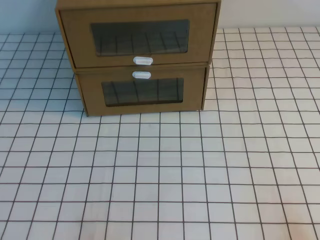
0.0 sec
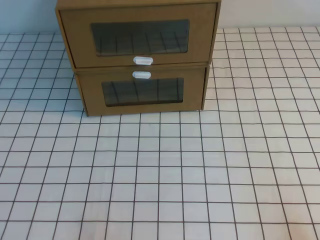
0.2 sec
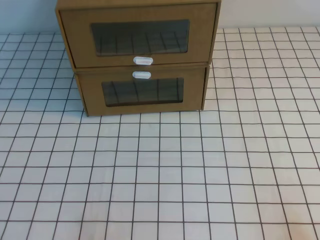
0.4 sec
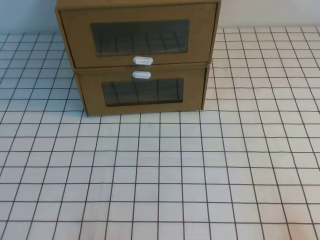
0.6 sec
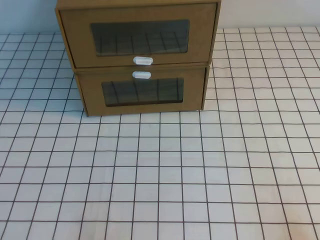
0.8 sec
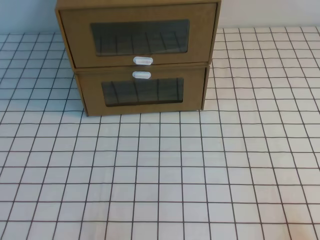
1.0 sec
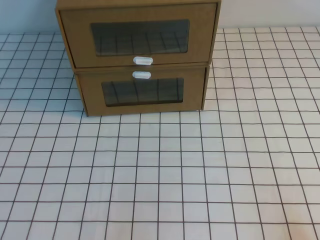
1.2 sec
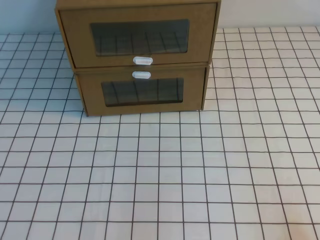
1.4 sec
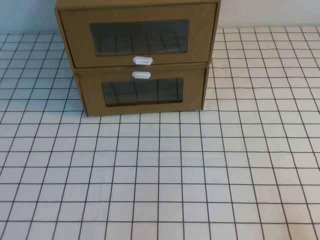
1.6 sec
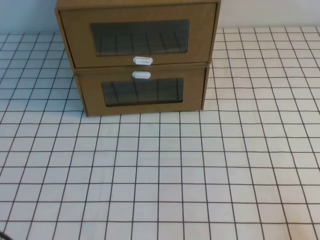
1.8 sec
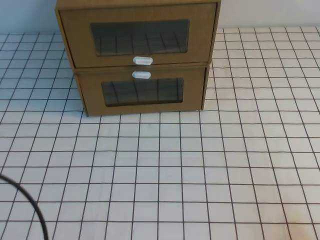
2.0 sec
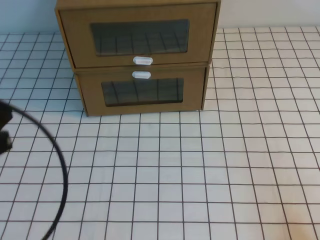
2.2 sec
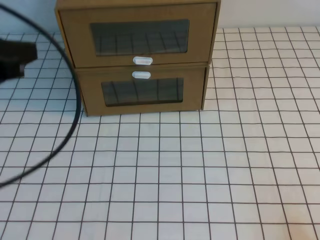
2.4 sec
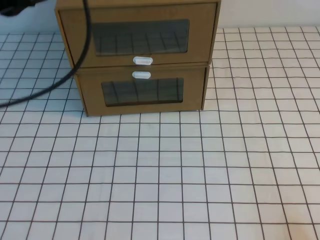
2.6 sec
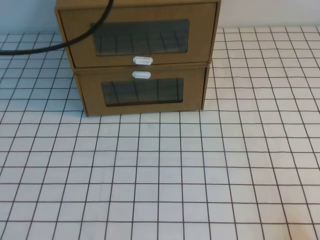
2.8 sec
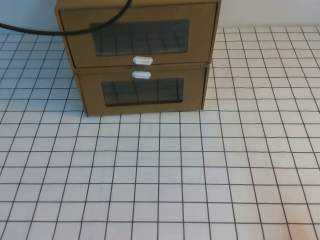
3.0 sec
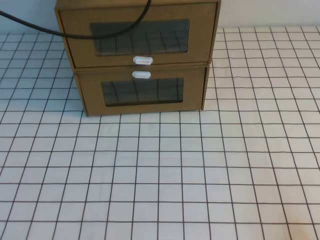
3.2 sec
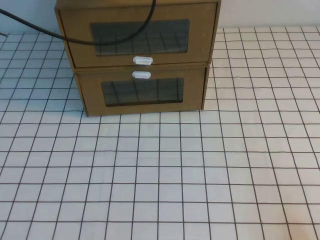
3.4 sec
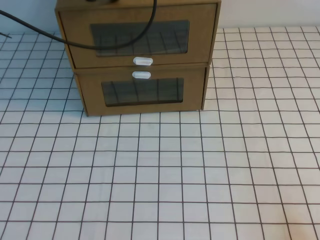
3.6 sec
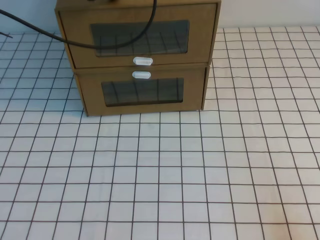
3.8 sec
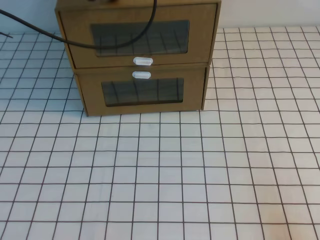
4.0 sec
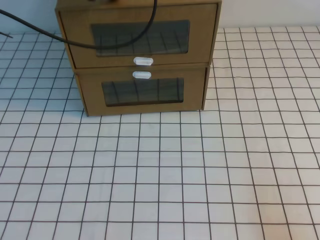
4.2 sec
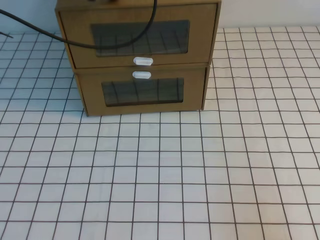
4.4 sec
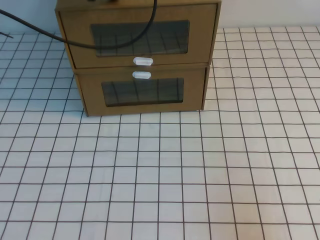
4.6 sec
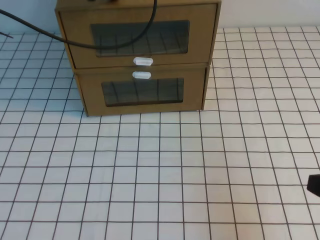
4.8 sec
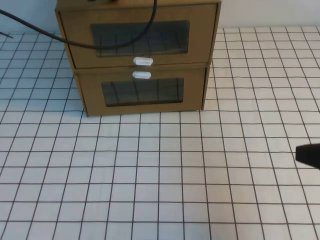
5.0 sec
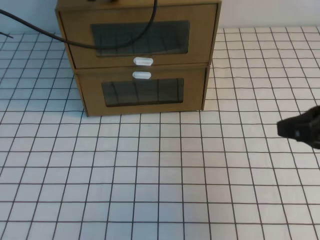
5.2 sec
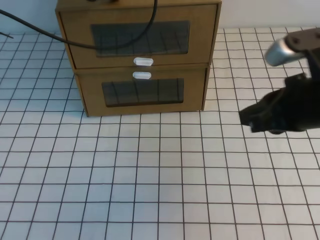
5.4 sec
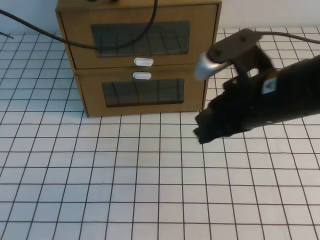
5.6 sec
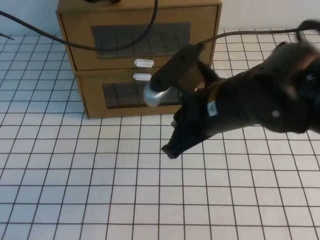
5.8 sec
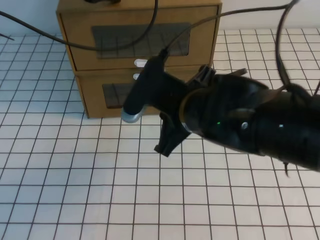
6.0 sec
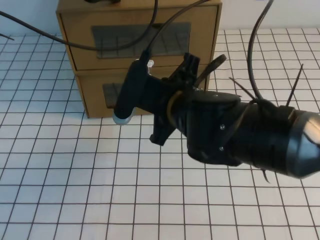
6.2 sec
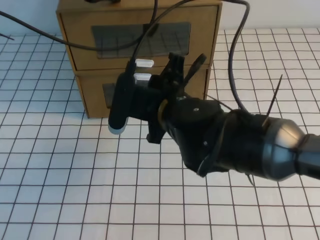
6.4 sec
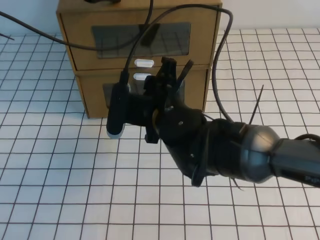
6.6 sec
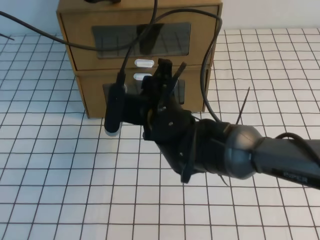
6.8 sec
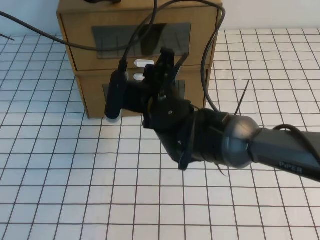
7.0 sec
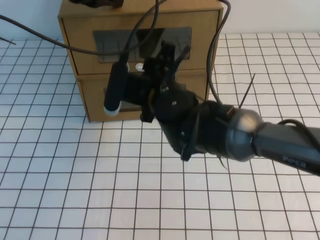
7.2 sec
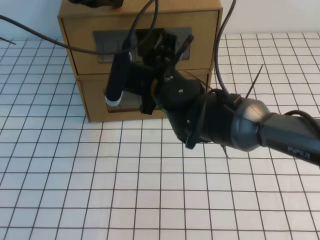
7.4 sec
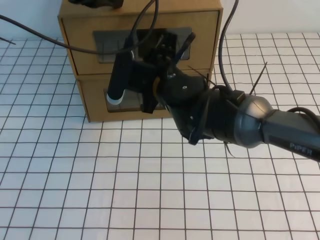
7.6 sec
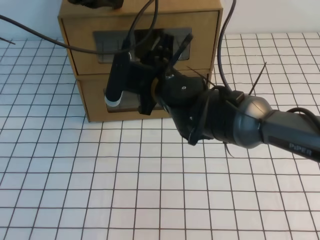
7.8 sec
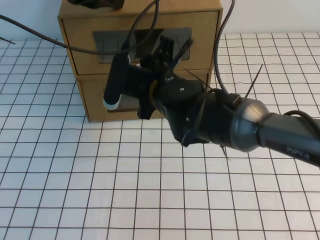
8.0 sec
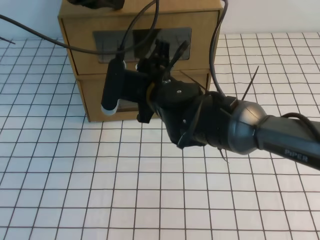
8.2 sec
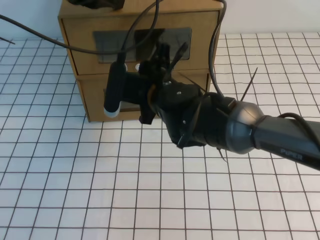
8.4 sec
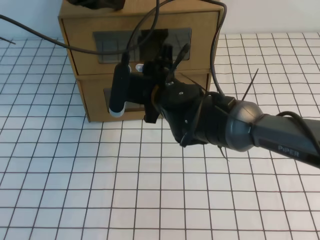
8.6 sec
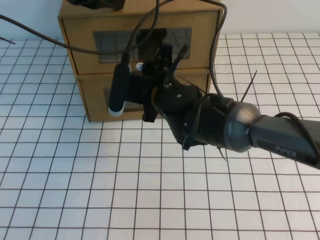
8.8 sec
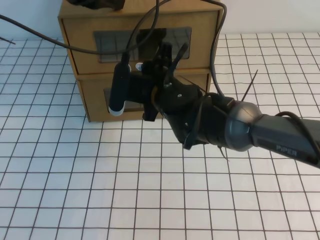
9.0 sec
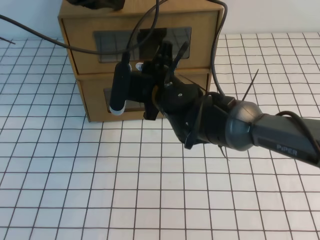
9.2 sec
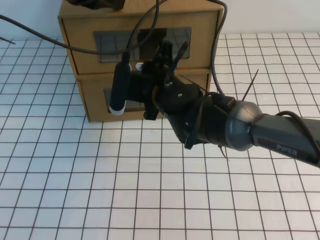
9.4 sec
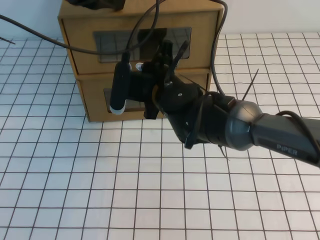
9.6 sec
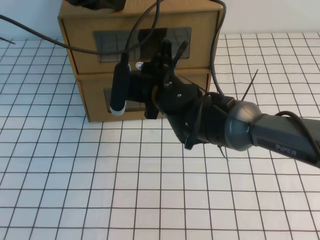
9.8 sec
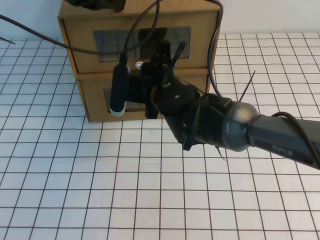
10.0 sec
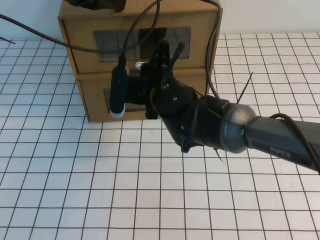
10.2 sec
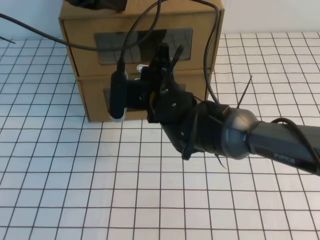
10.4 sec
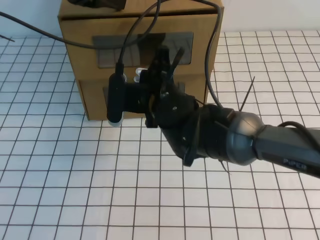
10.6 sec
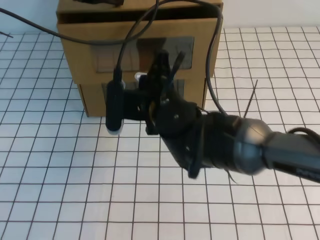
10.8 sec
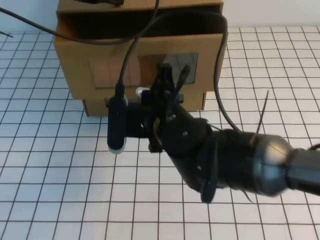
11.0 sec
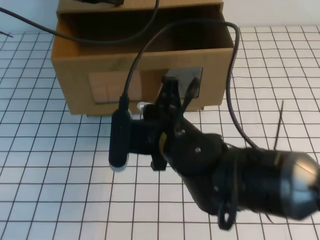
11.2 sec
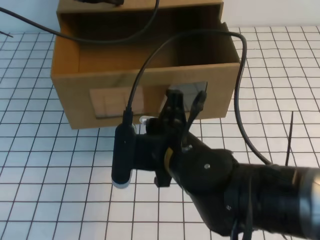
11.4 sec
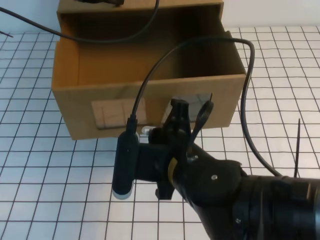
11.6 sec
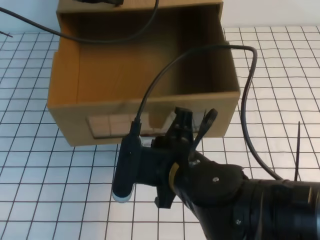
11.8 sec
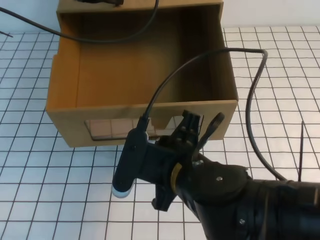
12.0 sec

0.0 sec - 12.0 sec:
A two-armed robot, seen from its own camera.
Task of the whole recording: open the shoebox on the white tablecloth.
1.6 sec - 3.0 sec: The left gripper heads forward and upward, covering some 40 cm.
3.0 sec - 4.4 sec: The left gripper is displaced forward and downward by some 10 cm. Meanwhile the right gripper moves upward, roughly 5 cm.
4.4 sec - 6.0 sec: The right gripper shifts roughly 30 cm to the left and forward.
6.0 sec - 7.6 sec: The right gripper travels forward and to the left by approximately 10 cm, and opens up.
7.6 sec - 9.0 sec: There are only small adjustments of the grippers.
9.0 sec - 10.4 sec: The right gripper closes.
10.4 sec - 12.0 sec: The right gripper travels backward by approximately 15 cm.

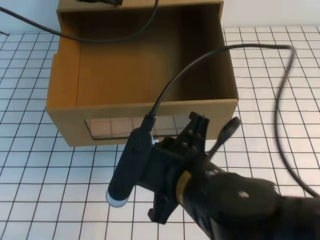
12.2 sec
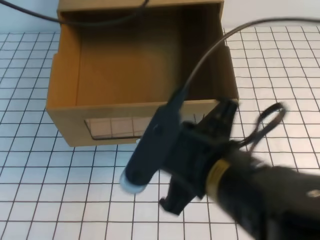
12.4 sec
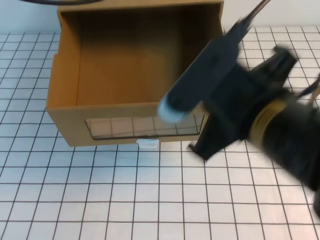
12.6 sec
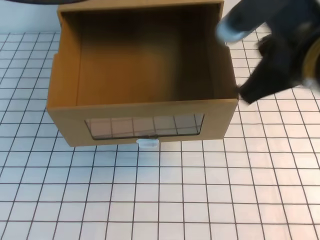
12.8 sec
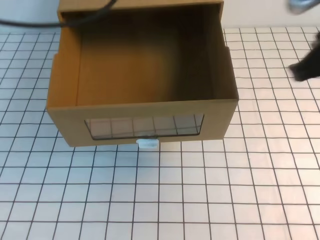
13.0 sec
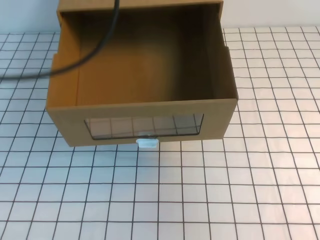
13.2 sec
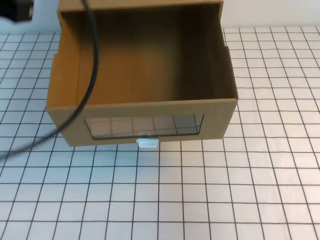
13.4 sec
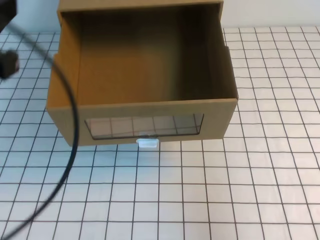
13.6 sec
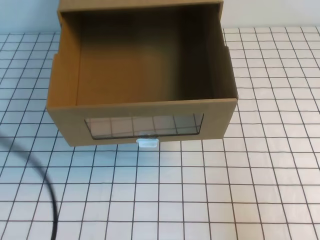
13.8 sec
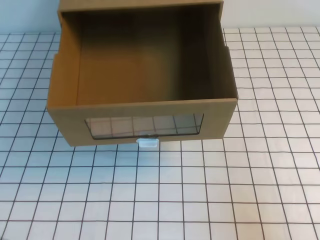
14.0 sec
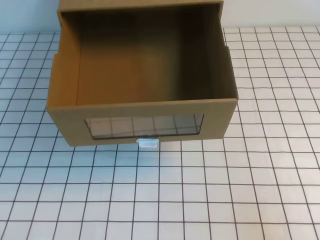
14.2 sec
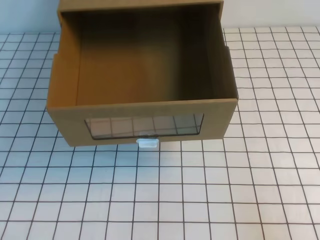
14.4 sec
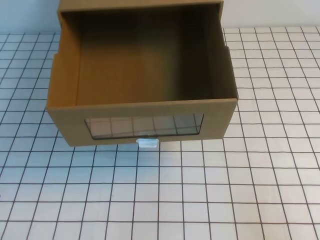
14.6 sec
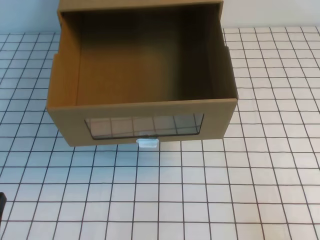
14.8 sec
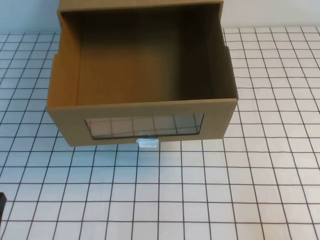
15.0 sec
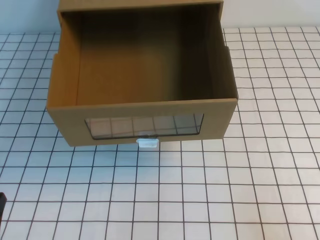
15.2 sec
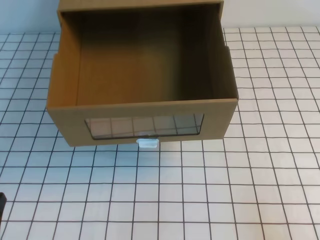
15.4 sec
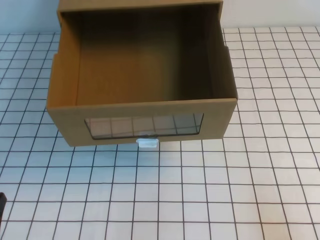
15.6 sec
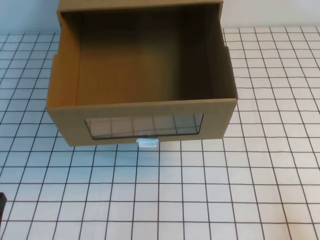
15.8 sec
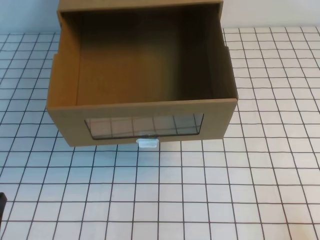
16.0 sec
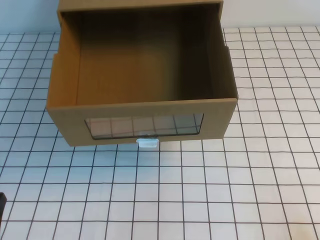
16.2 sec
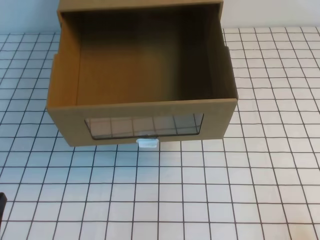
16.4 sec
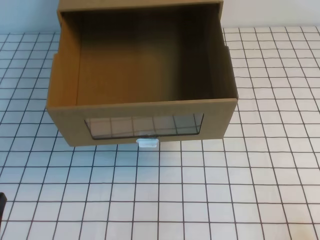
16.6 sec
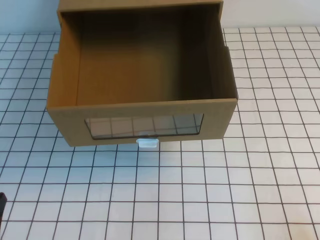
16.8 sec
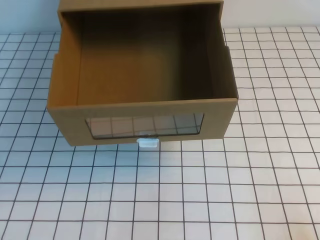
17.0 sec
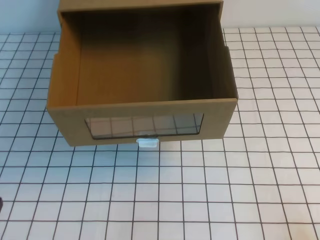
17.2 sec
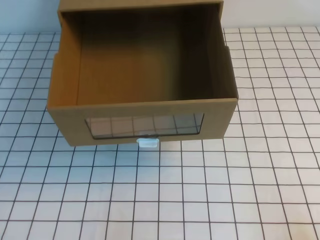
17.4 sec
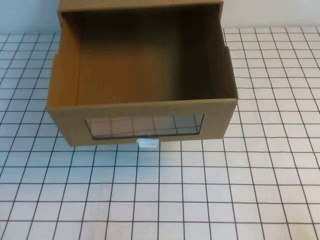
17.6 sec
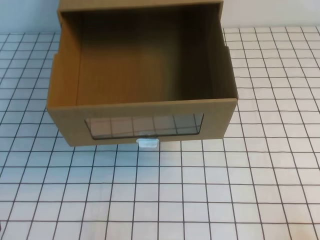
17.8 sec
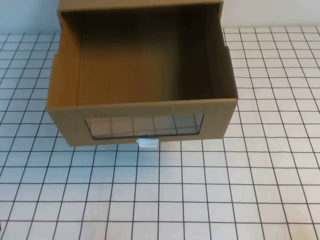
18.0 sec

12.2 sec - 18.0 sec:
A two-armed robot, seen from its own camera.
Task of the whole recording: open the shoebox on the white tablecloth.
Step, 12.2 sec - 18.0 sec: Open the shoe box.
12.2 sec - 13.6 sec: The right gripper heads to the right, covering roughly 25 cm, while the left gripper goes about 25 cm backward.
13.6 sec - 15.0 sec: The right gripper is displaced downward and backward by some 15 cm. Meanwhile the left gripper shifts about 25 cm downward and backward.

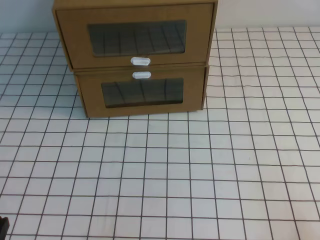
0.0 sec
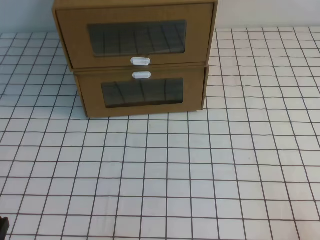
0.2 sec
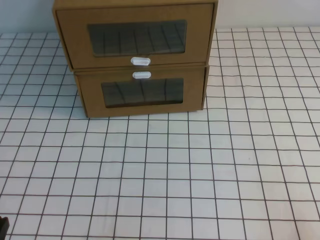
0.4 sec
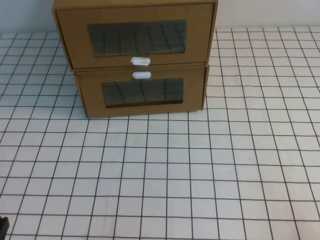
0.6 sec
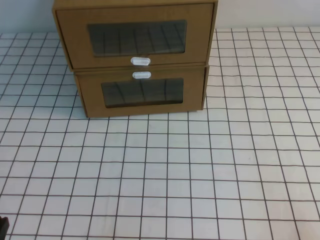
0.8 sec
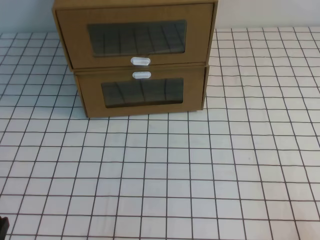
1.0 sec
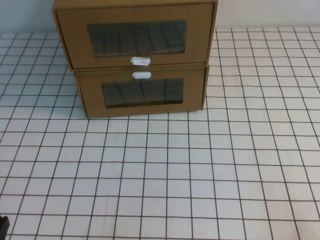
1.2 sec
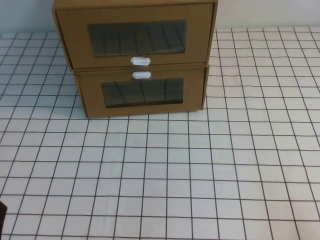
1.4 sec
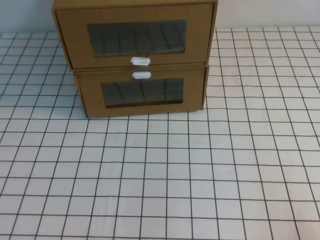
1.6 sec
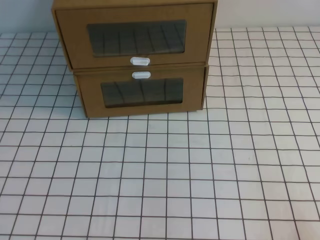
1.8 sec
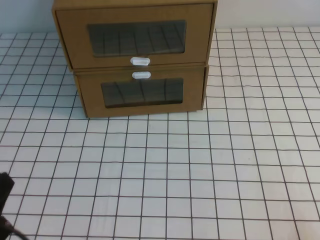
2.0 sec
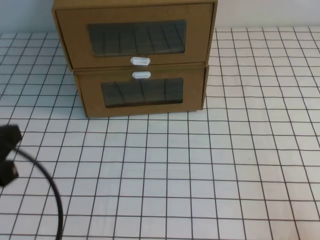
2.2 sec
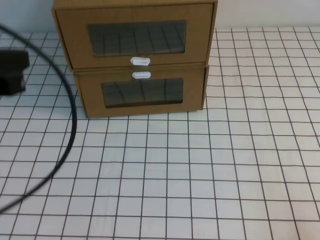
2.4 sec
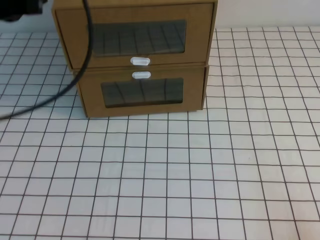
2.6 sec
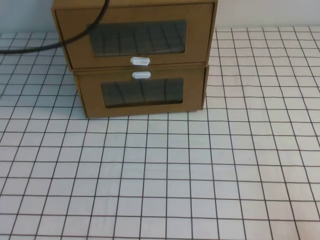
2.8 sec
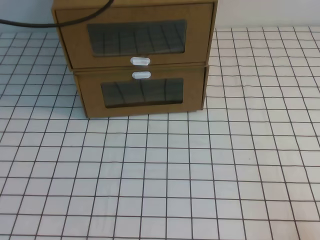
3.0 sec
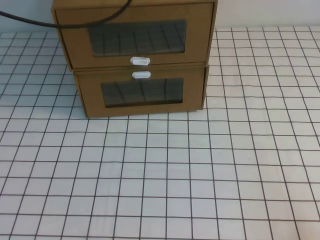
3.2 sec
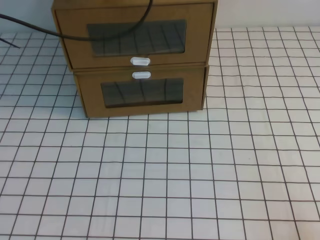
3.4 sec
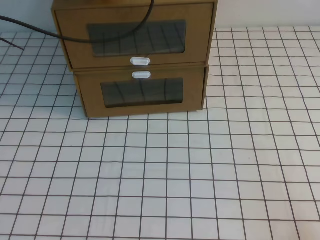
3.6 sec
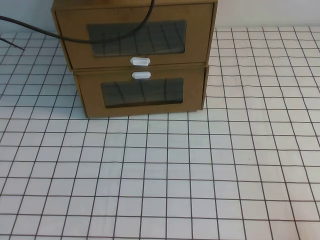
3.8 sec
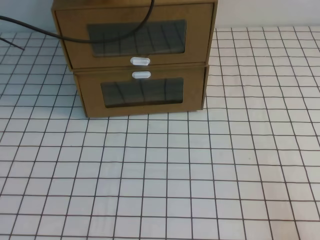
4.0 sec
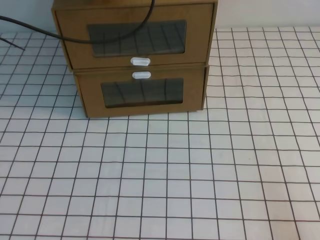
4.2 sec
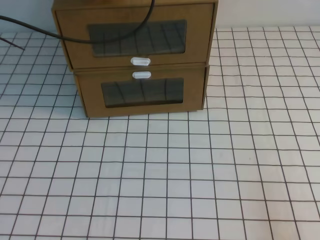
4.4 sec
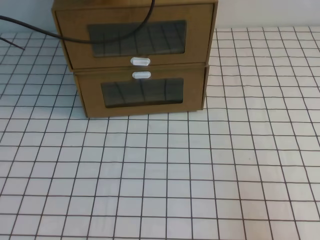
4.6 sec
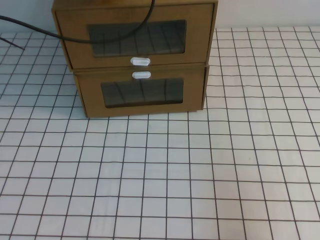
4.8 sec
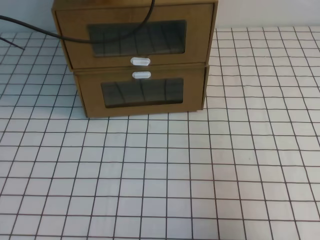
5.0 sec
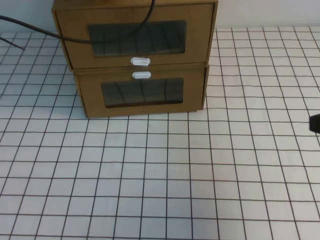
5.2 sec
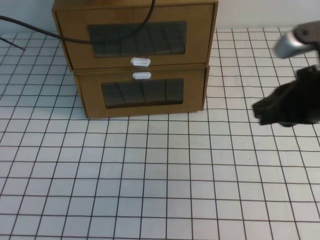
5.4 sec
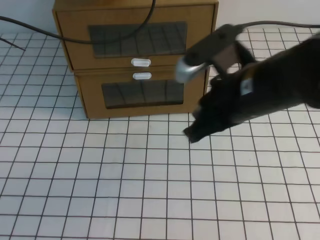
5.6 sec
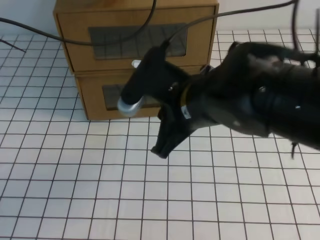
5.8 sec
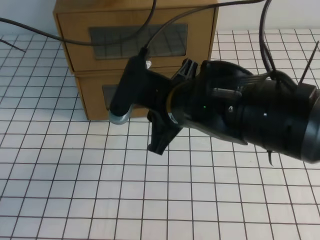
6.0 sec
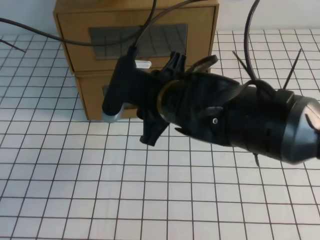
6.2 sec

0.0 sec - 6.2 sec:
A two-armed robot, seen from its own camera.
Task of the whole recording: open the shoebox on the white tablecloth.
3.2 sec - 4.6 sec: The left gripper is displaced downward and forward by roughly 10 cm, while the right gripper moves some 5 cm.
4.6 sec - 6.2 sec: The right gripper moves to the left and forward, about 35 cm, and opens its fingers.
